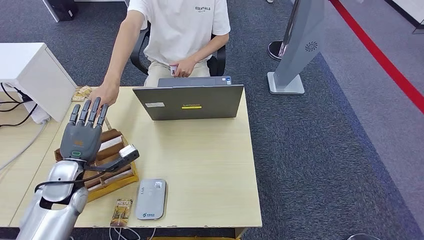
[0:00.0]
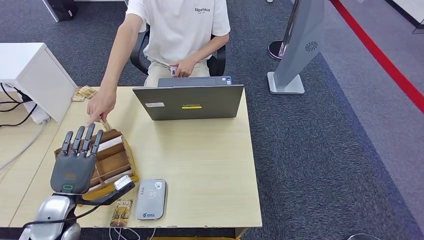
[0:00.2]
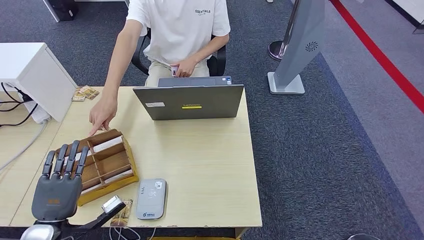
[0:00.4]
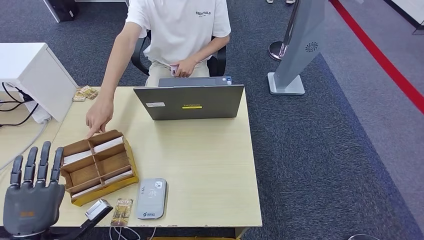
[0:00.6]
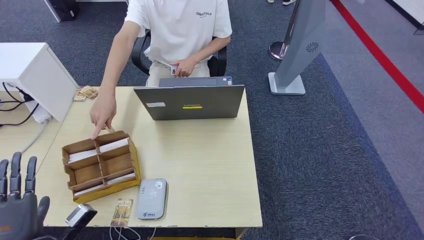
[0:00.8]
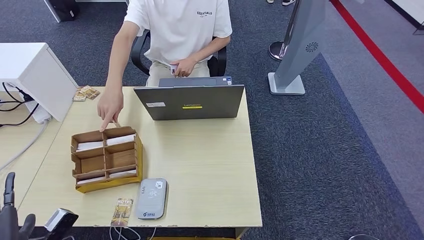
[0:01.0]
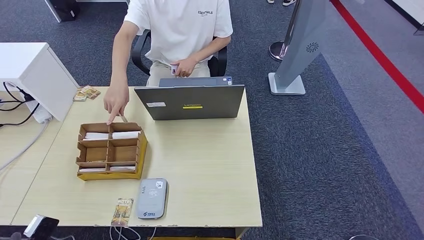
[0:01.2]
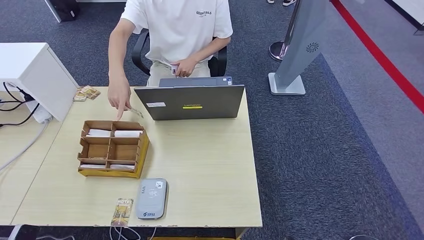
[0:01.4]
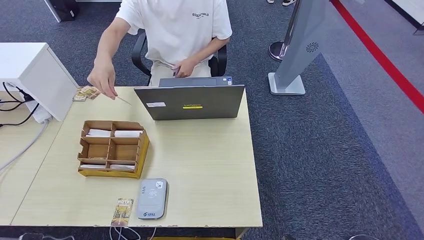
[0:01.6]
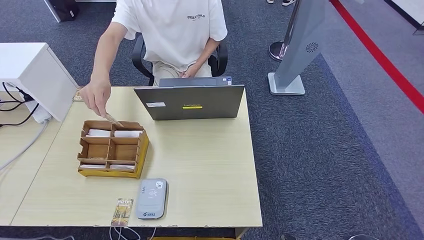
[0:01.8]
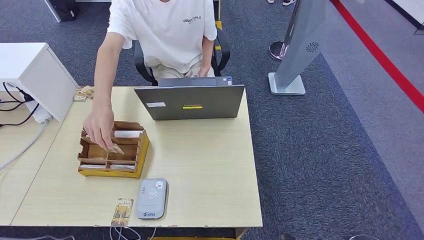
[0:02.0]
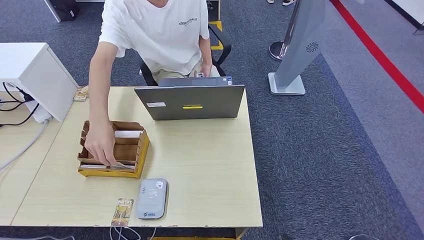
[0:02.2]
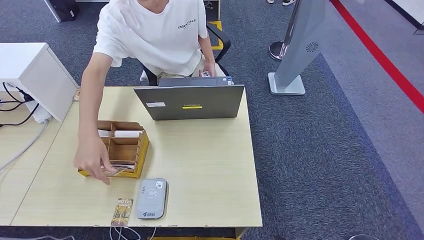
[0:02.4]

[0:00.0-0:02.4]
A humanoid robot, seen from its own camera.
Step, 0:00.0 to 0:02.4: Hand the room key to the person.
0:00.0 to 0:01.2: The left hand is displaced backward and to the left by roughly 25 cm.
0:01.2 to 0:02.4: The left hand goes roughly 25 cm downward.
